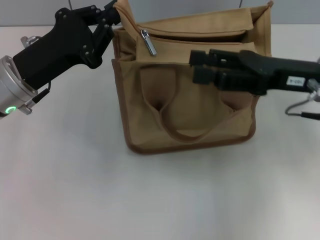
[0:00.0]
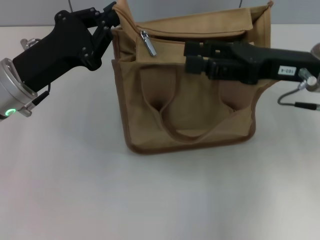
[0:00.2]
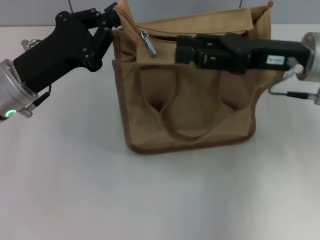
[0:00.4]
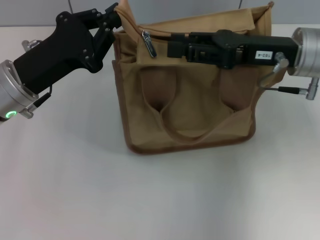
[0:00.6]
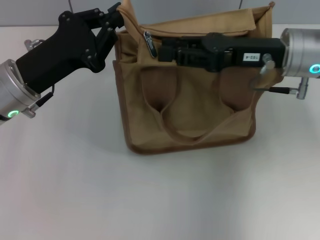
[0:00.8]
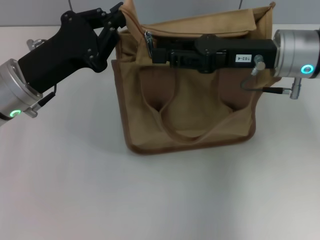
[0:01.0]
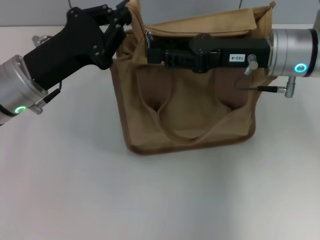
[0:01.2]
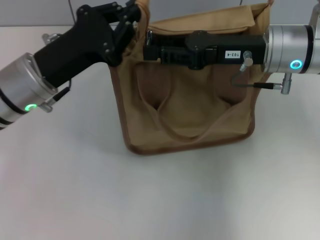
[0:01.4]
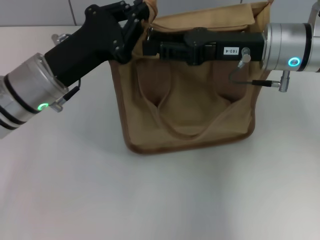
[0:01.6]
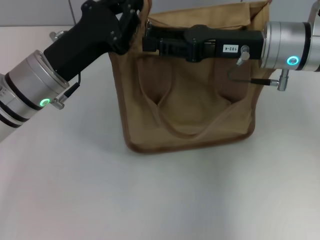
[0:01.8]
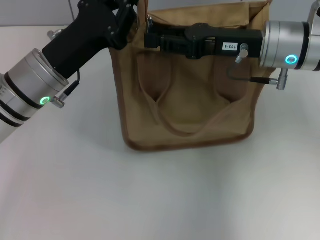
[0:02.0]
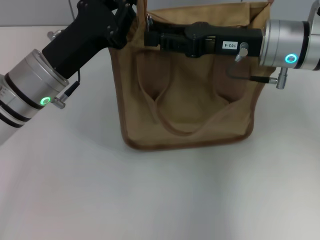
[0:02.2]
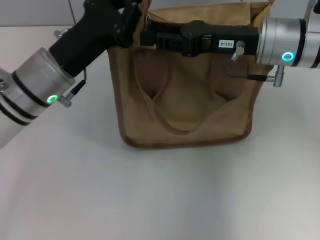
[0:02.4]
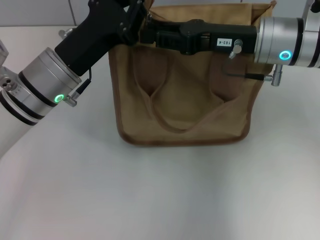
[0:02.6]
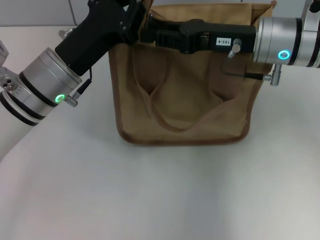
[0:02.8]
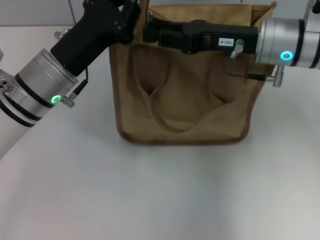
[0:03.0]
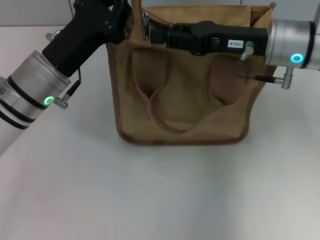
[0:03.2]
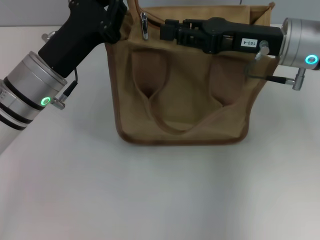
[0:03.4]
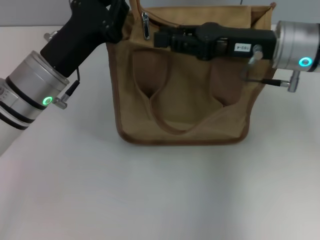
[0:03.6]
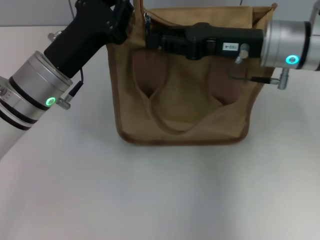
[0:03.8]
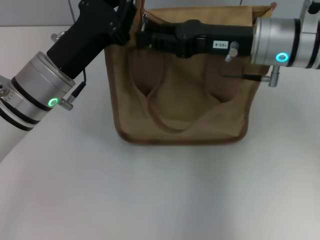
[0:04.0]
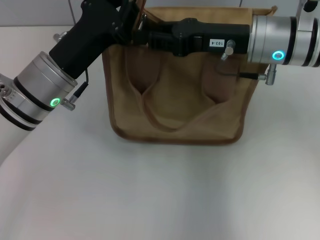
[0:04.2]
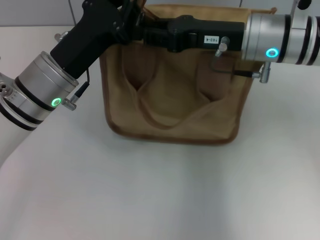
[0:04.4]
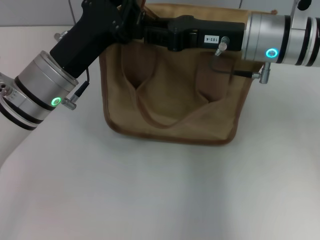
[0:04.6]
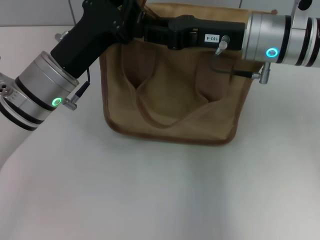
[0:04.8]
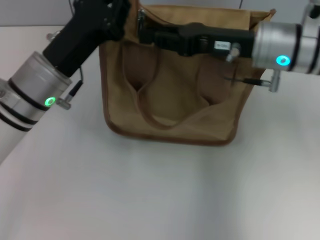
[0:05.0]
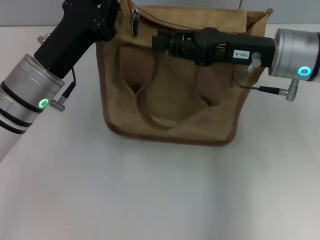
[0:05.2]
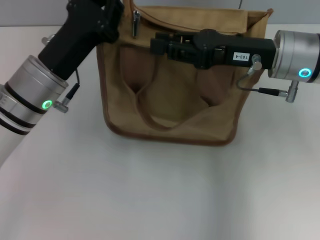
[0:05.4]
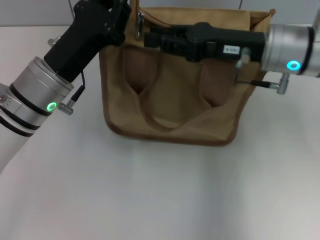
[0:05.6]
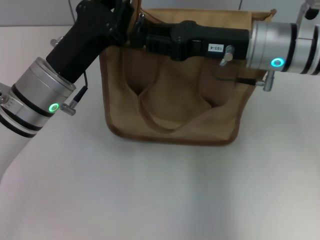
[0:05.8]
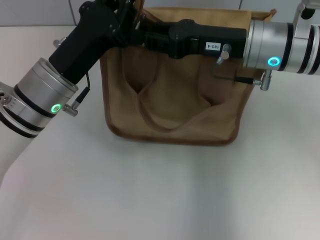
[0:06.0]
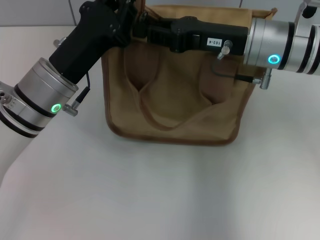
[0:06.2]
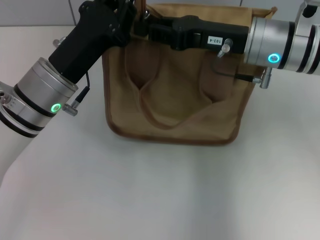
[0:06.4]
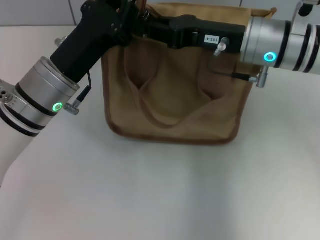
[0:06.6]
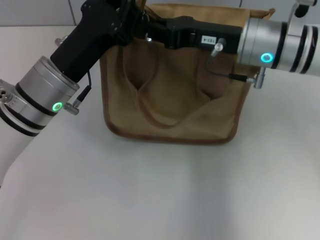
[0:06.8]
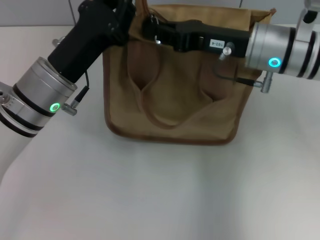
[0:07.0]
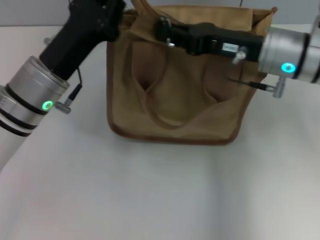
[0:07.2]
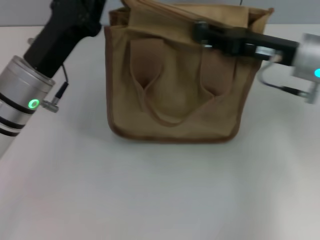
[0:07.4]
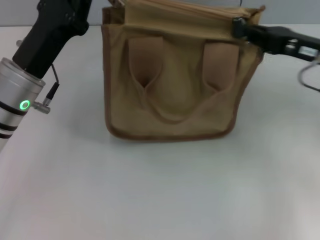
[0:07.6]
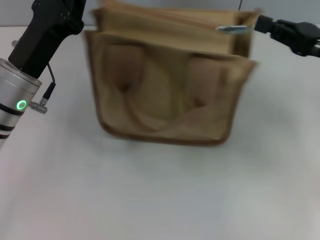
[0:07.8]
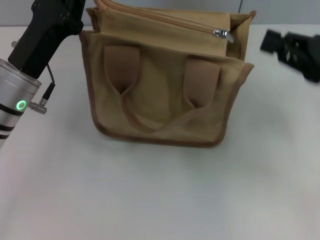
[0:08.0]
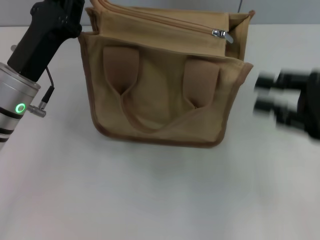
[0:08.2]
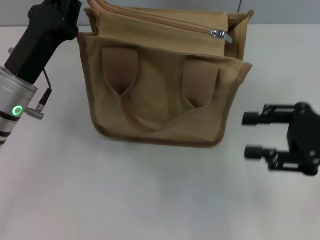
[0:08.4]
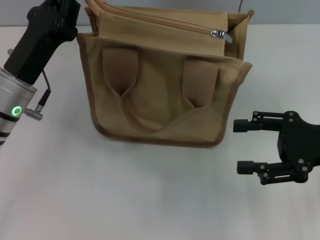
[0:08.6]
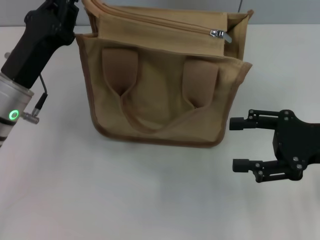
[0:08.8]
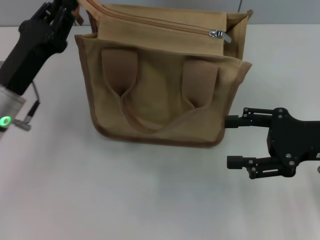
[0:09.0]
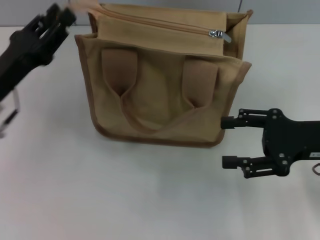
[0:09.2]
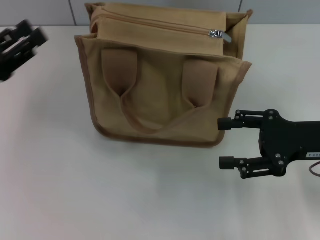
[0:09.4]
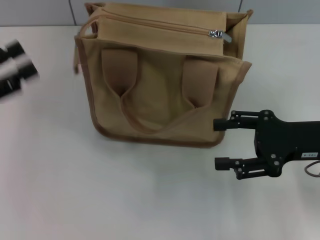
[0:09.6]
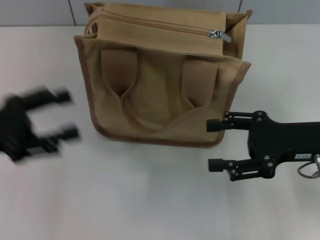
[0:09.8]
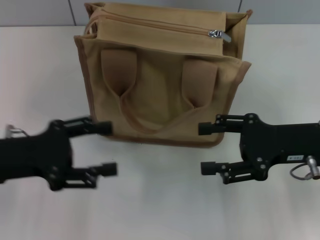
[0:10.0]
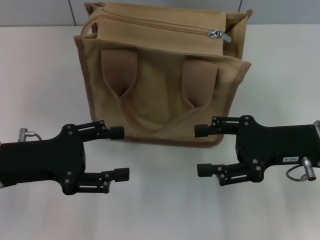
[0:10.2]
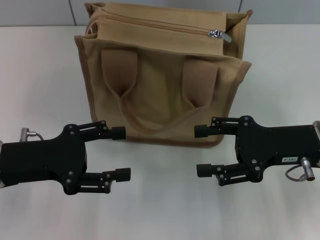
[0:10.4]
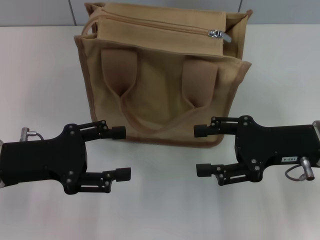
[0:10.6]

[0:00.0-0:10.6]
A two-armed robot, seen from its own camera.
Step, 0:00.0 to 0:08.0: Pull up the zipper with your right hand.
Step, 0:08.4 to 0:09.4: Grab the zipper with your left hand.
0:00.0 to 0:01.6: The right gripper heads to the left, covering about 5 cm, and closes its fingers.
0:01.6 to 0:06.0: The grippers move only a little.
0:06.0 to 0:07.6: The right gripper is displaced to the right by approximately 10 cm, and closes.
0:07.6 to 0:09.0: The right gripper travels backward by approximately 5 cm, and opens.
0:09.0 to 0:10.6: The left gripper moves some 10 cm to the left and comes back, and opens up.
